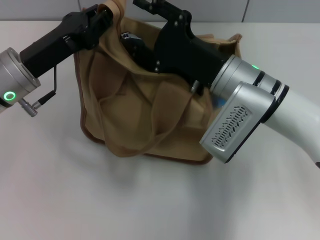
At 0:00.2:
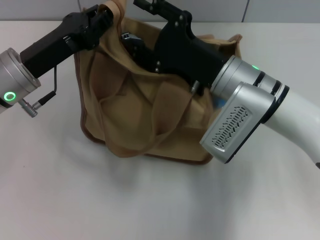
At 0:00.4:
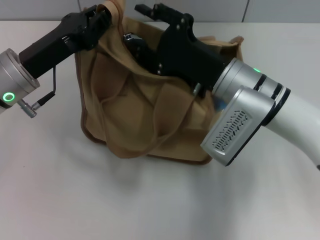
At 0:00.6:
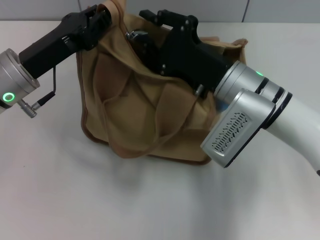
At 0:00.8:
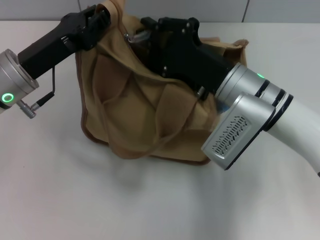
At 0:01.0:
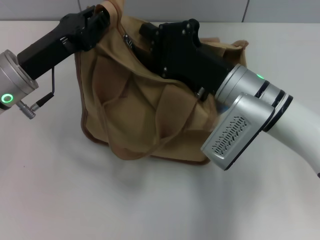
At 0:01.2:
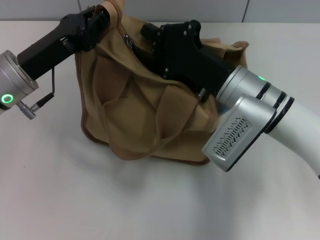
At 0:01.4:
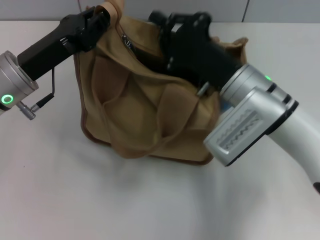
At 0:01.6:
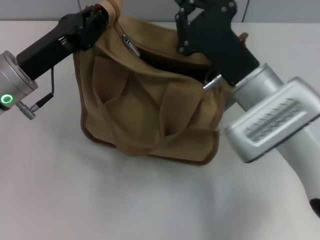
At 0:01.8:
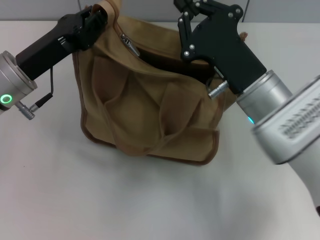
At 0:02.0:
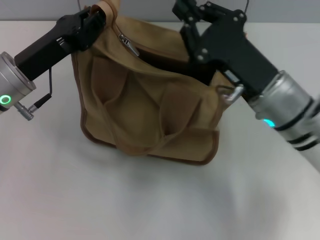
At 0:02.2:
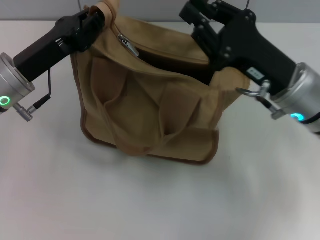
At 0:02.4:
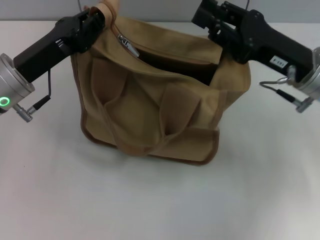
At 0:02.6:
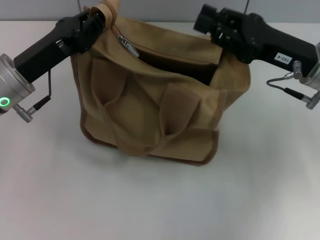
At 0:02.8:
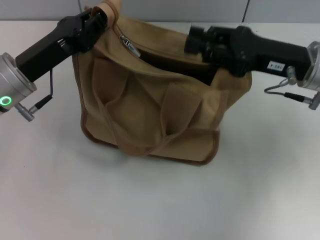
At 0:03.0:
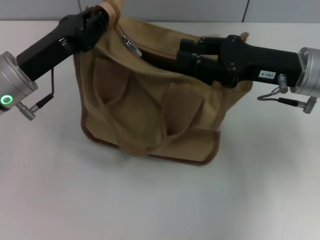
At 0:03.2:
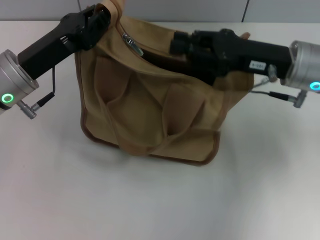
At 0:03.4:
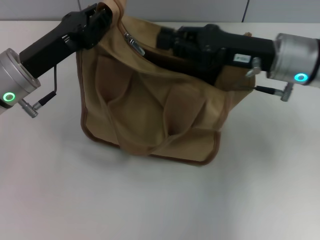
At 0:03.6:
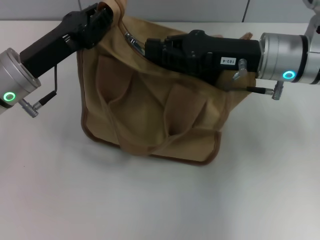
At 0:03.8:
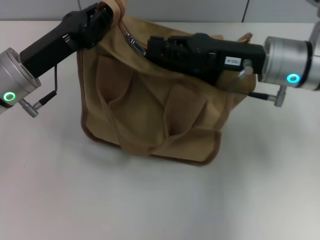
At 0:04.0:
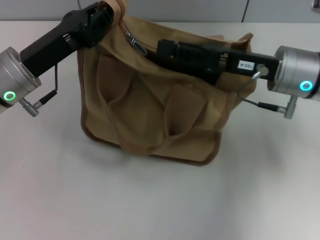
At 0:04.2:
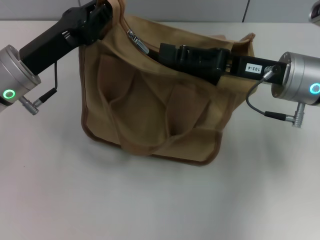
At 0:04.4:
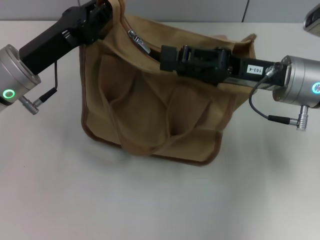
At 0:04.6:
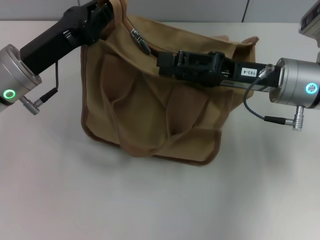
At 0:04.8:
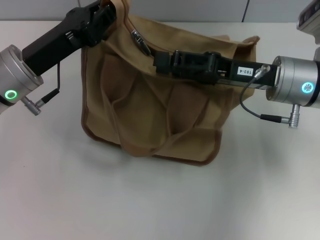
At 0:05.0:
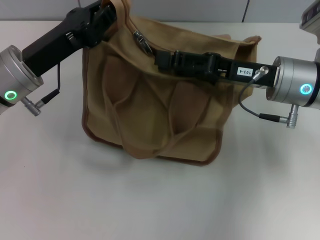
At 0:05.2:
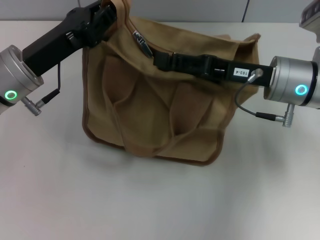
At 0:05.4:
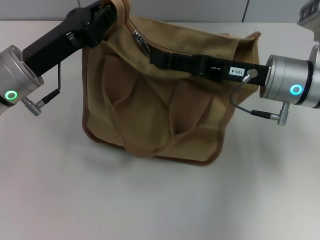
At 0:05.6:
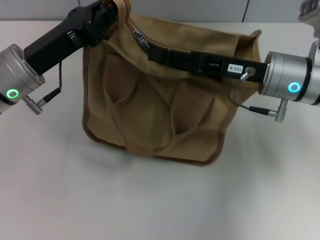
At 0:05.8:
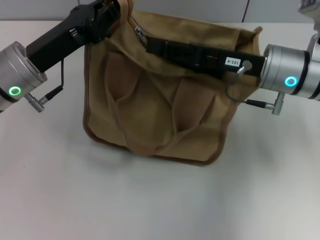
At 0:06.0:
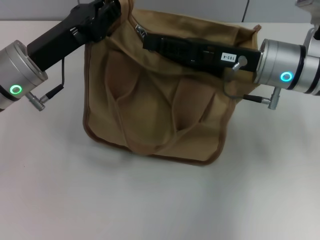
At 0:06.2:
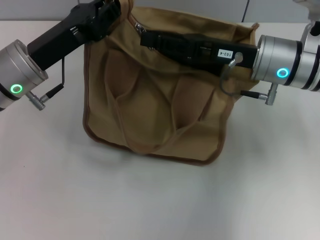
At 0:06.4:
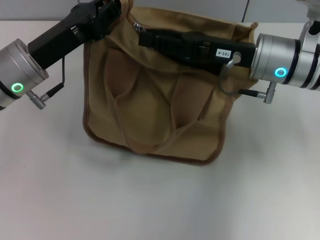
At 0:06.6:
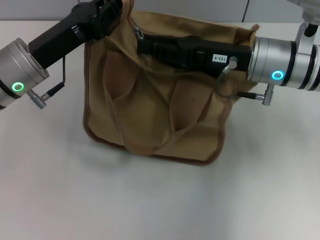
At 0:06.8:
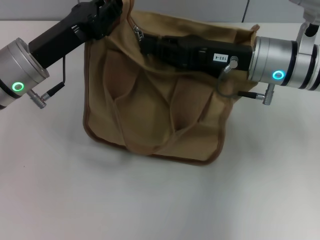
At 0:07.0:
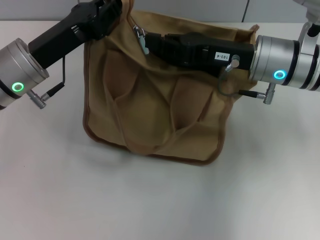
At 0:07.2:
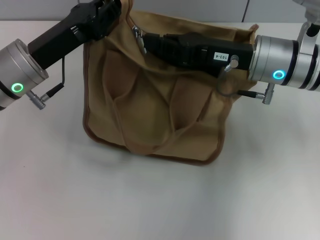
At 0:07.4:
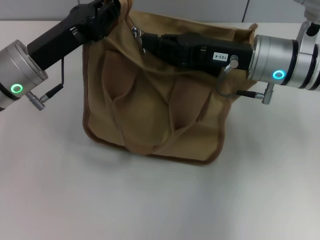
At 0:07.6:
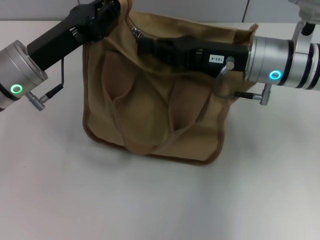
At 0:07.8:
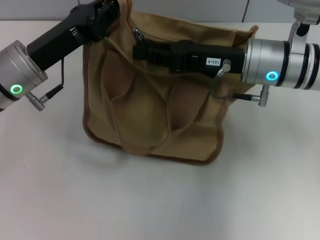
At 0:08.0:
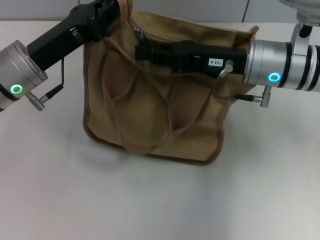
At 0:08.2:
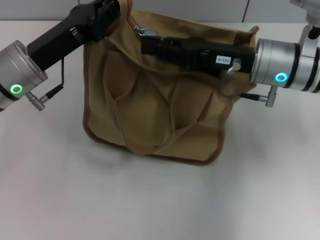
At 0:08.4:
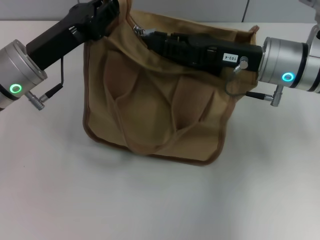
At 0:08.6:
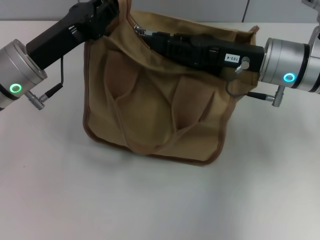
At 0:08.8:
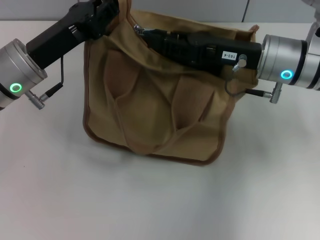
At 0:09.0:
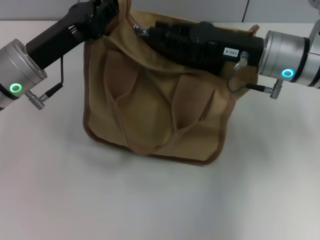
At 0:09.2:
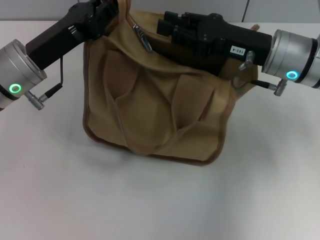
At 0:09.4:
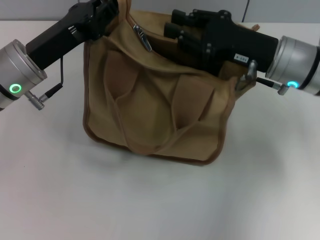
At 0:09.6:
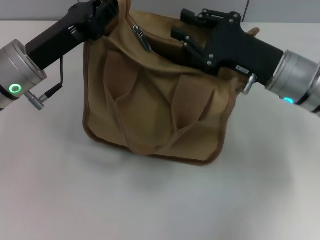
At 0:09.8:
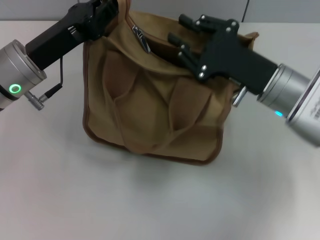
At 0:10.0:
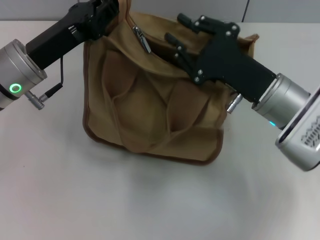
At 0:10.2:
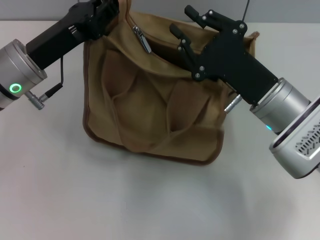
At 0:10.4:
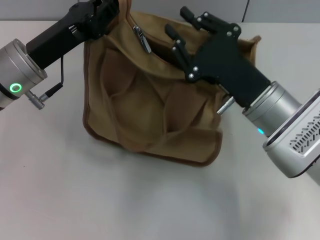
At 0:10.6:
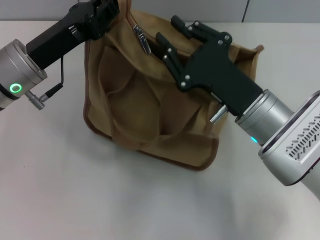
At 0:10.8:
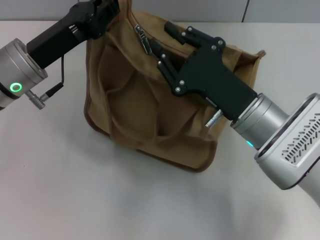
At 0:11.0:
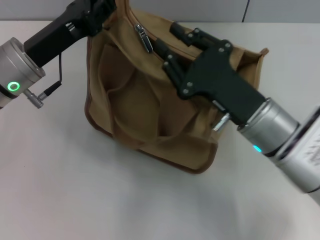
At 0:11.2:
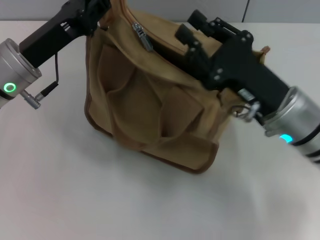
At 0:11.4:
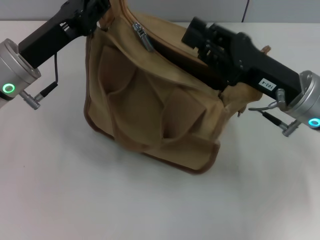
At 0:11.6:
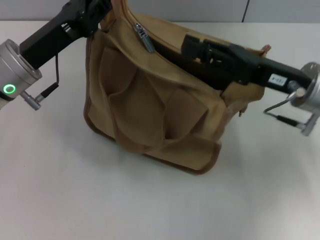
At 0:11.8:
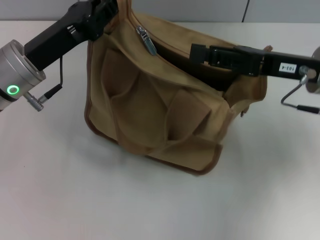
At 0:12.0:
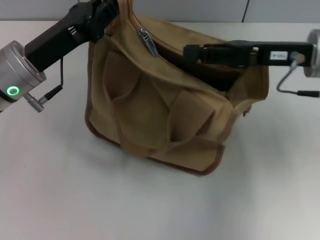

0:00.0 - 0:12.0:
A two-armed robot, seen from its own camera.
0:00.0 - 0:01.6: The right gripper closes.
0:01.6 - 0:03.0: The right gripper goes roughly 10 cm to the right, and opens up.
0:03.0 - 0:04.4: The right gripper closes, then reopens.
0:06.0 - 0:07.6: The right gripper closes its fingers.
0:07.6 - 0:09.0: The right gripper opens.
0:09.0 - 0:10.4: The right gripper moves backward and downward, some 10 cm.
0:10.4 - 0:12.0: The right gripper travels upward, to the right and forward by roughly 10 cm.

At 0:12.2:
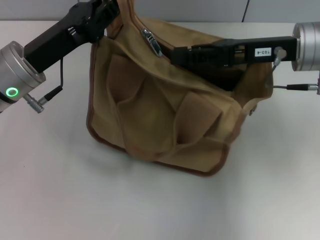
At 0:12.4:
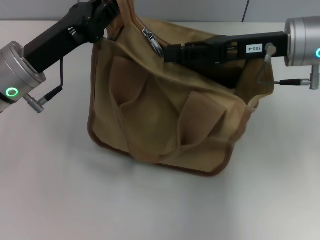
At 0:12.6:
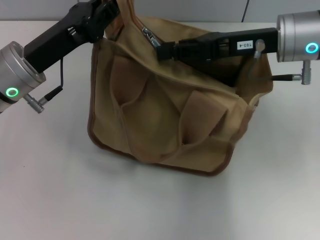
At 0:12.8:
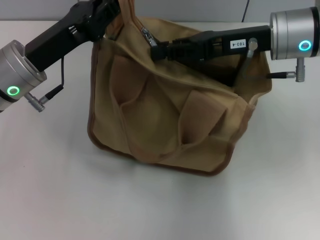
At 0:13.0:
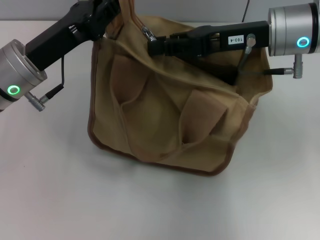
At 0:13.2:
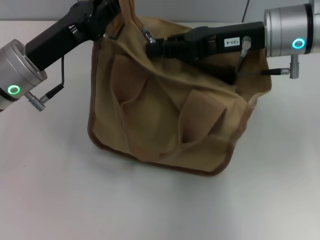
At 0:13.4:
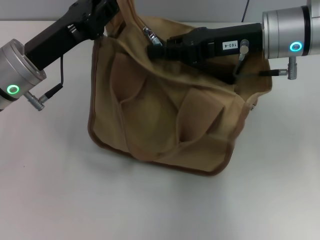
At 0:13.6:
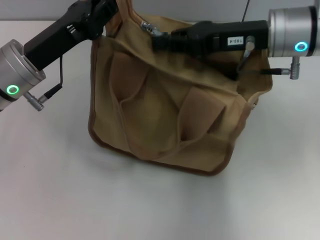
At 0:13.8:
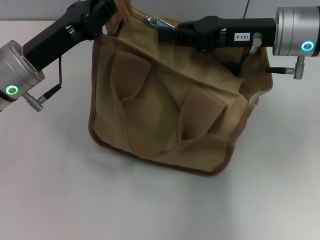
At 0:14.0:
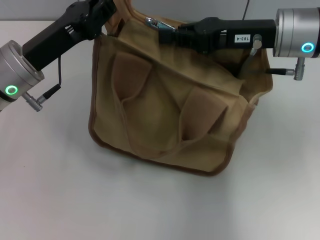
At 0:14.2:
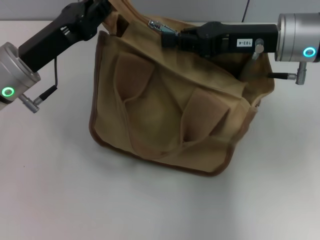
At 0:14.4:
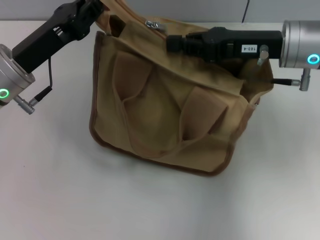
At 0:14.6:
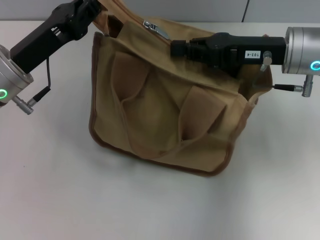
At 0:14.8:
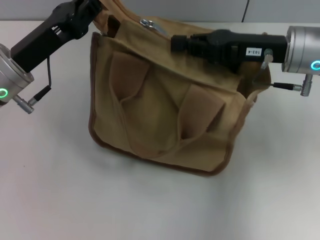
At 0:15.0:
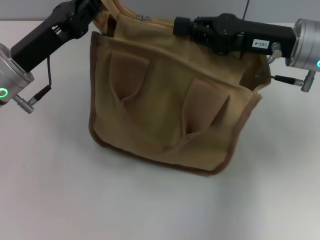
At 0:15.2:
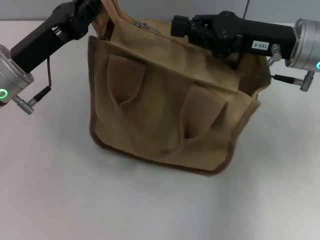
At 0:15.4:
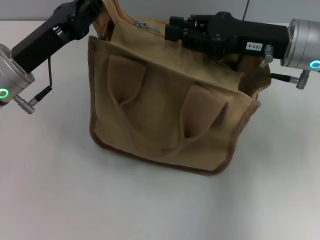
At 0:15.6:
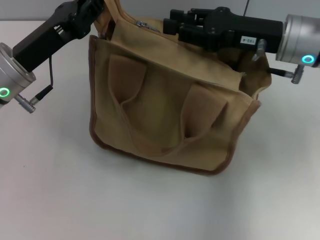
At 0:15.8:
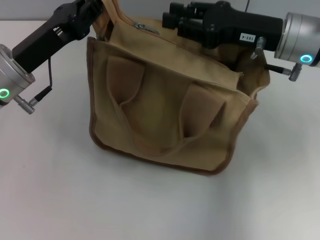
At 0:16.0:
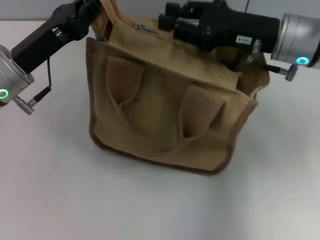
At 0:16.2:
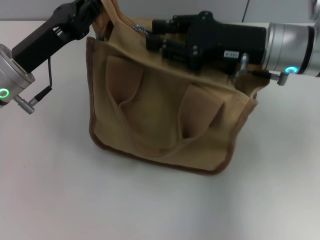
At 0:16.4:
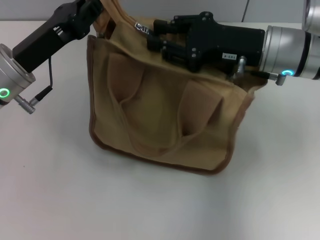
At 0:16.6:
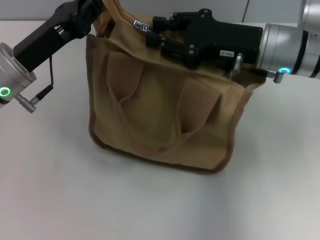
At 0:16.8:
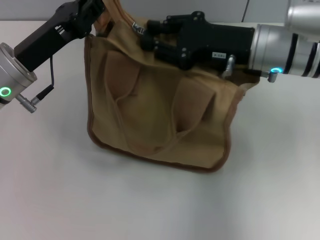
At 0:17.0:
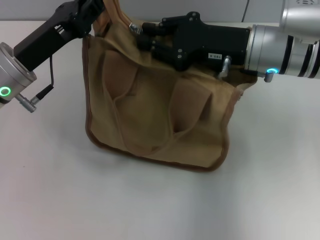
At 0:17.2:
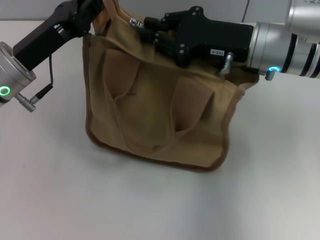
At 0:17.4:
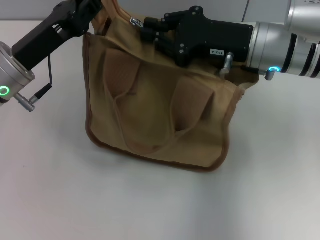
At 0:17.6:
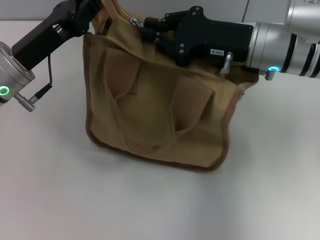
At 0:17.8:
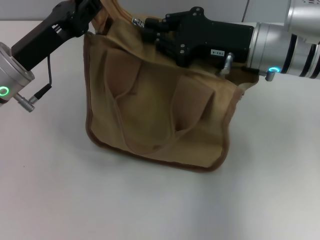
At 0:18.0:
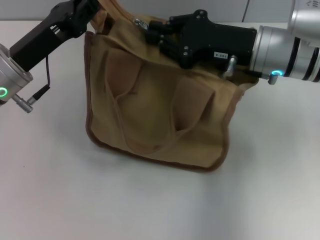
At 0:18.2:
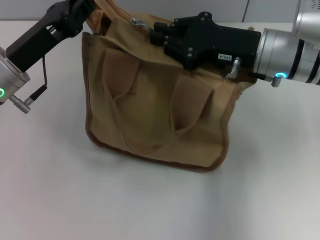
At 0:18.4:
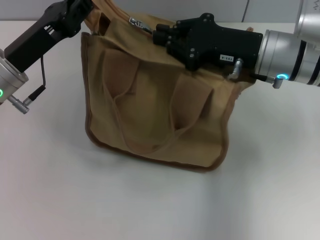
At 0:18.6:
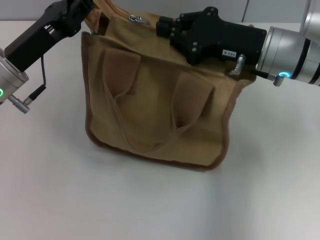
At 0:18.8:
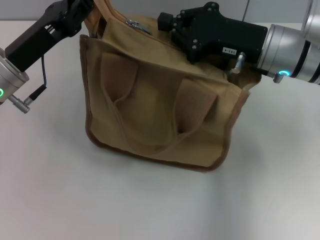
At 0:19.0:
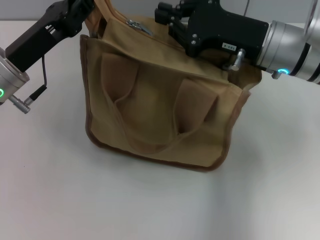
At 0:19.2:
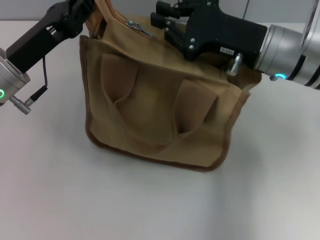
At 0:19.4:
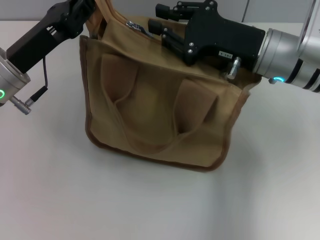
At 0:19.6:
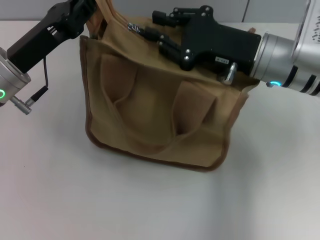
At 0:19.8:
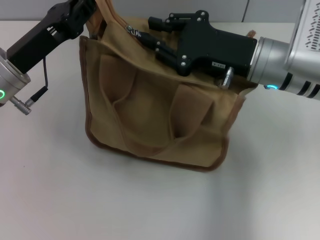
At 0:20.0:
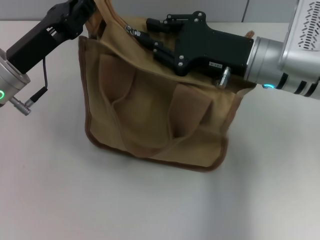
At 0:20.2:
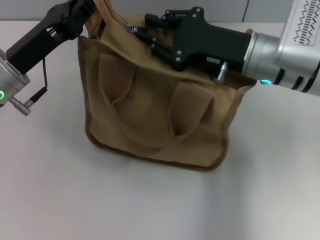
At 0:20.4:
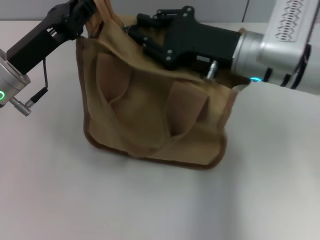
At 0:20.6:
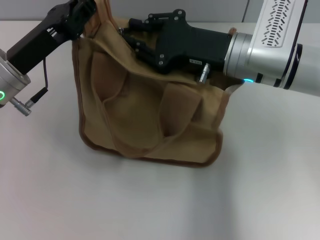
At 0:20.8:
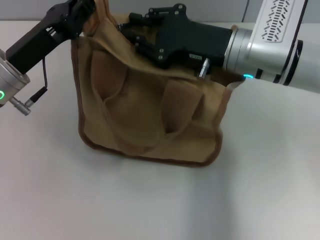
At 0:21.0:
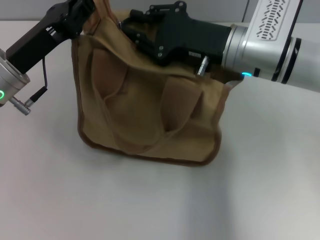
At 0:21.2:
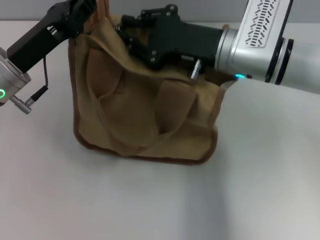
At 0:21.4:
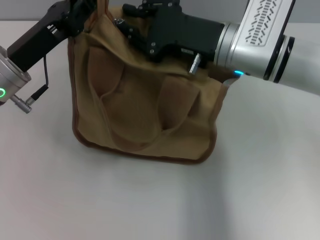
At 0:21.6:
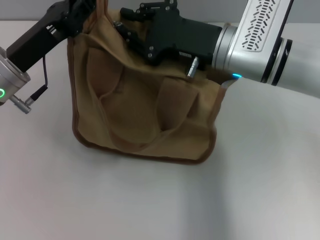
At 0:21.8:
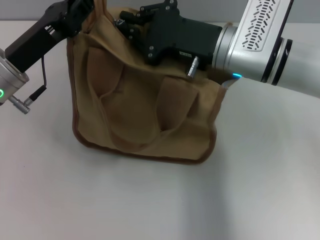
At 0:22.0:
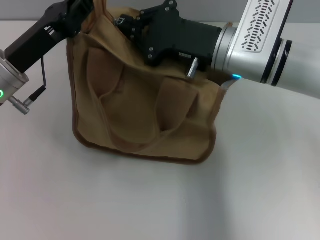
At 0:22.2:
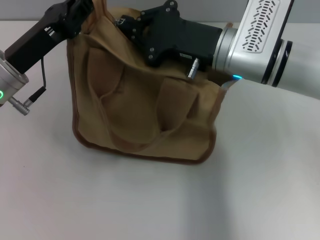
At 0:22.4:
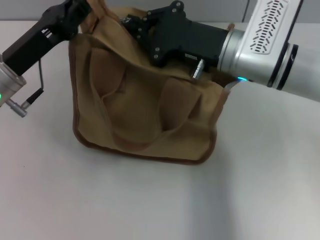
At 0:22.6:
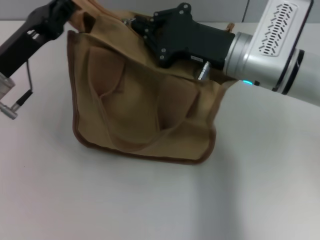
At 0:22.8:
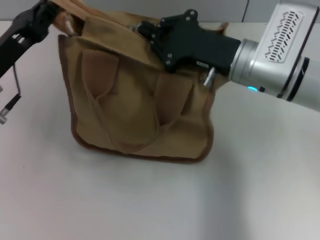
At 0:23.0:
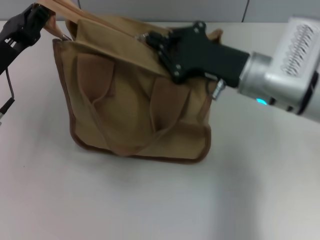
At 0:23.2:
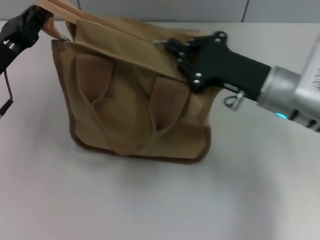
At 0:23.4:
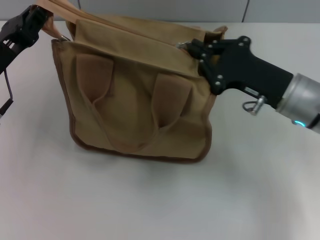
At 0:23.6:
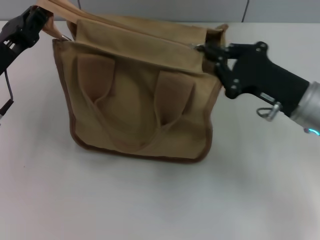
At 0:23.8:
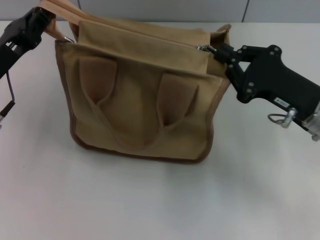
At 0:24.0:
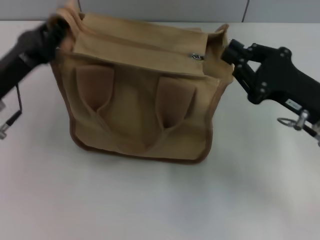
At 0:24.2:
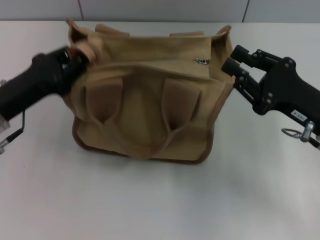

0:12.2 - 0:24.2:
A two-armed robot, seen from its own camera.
Step, 0:12.2 - 0:23.8: Pull up the zipper with your right hand.
0:12.2 - 0:13.8: The right gripper closes up.
0:13.8 - 0:15.2: The grippers make only small movements.
0:15.2 - 0:16.6: The right gripper opens its fingers.
0:16.6 - 0:18.2: Both grippers stay put.
0:18.2 - 0:19.8: The grippers stay close to where they were, moving slightly.
0:21.2 - 0:22.6: The right gripper closes up.
0:22.6 - 0:24.2: The right gripper is displaced to the right and backward by roughly 15 cm.
